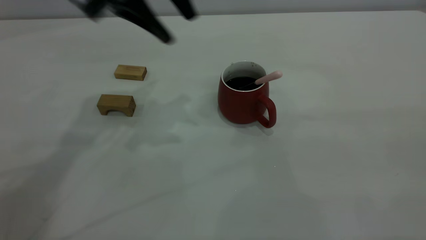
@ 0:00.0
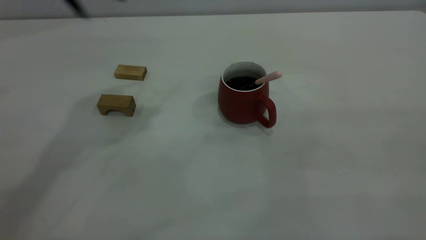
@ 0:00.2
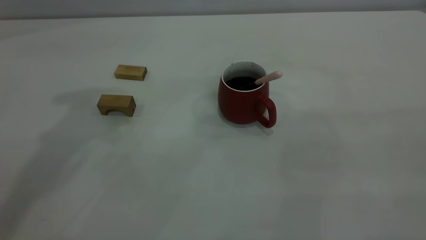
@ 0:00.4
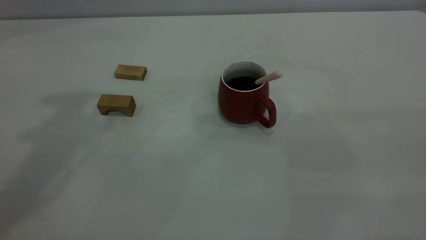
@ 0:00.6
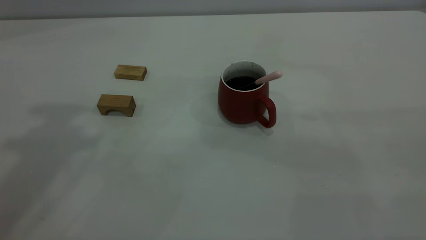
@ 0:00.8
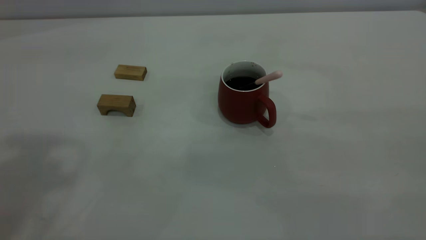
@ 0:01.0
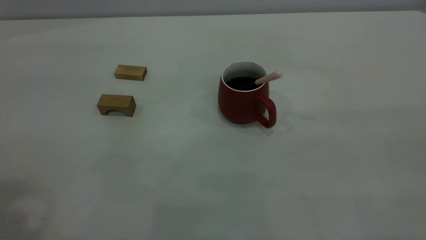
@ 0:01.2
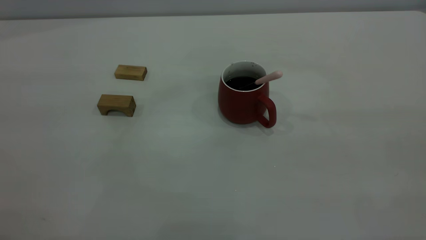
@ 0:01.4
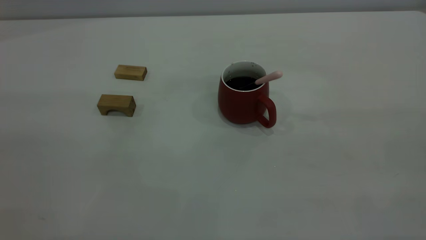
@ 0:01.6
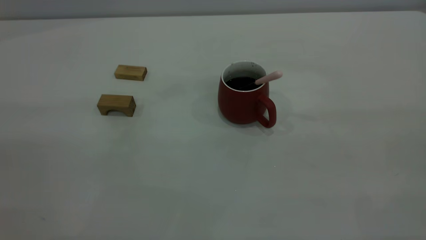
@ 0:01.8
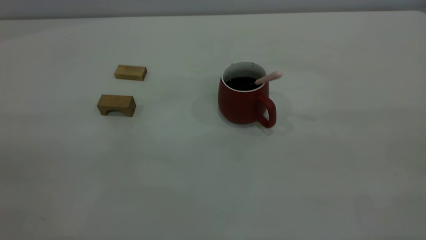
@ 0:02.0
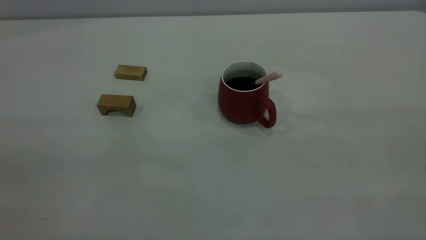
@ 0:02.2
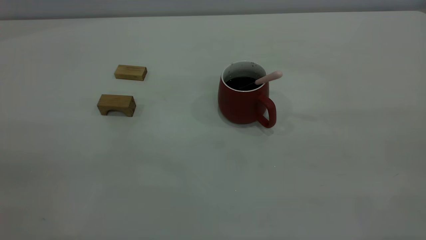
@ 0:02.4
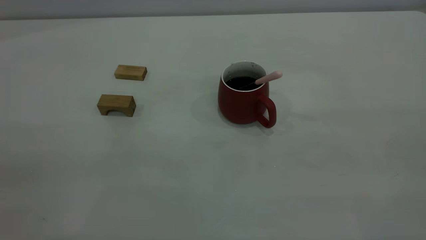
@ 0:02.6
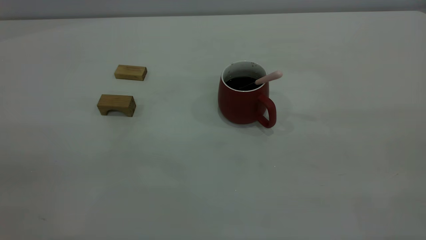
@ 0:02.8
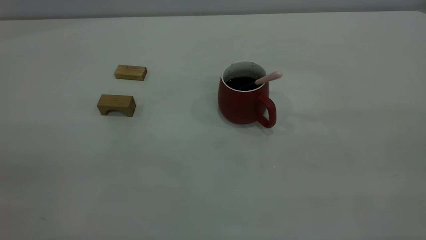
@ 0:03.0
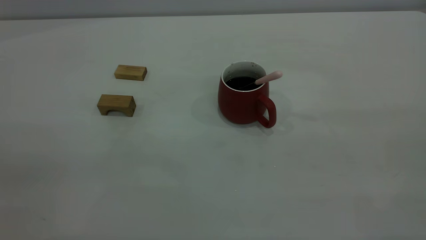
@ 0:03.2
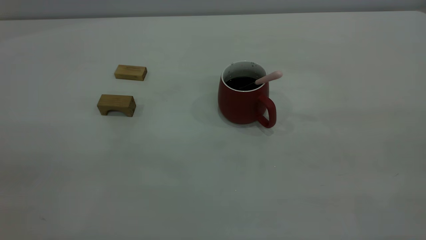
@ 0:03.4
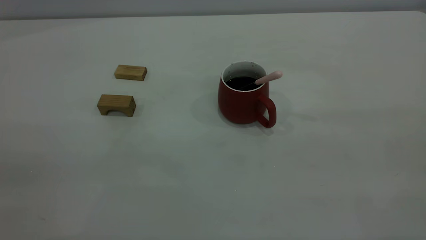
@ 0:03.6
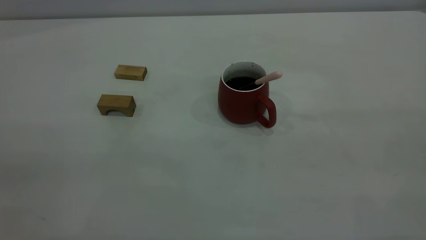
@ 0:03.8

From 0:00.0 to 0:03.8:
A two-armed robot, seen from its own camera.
From 0:00.0 to 0:01.2: The left gripper moves backward, to the left and upward, some 30 cm.
From 0:02.6 to 0:03.8: Both grippers stay put.
